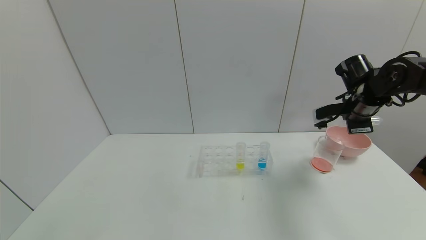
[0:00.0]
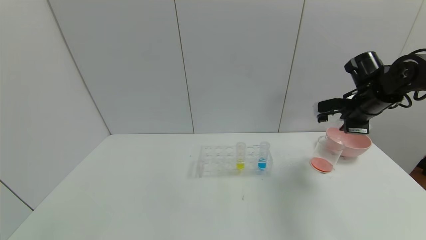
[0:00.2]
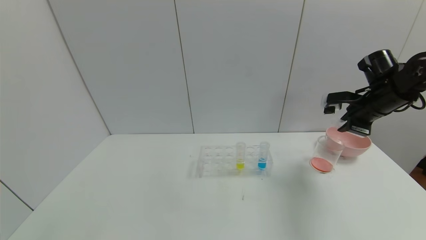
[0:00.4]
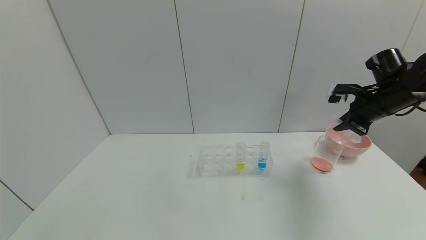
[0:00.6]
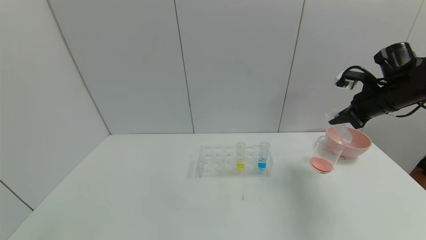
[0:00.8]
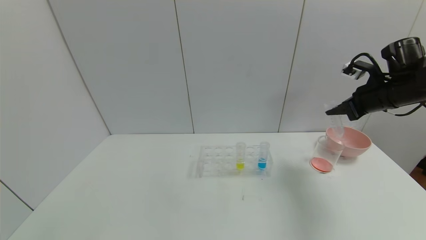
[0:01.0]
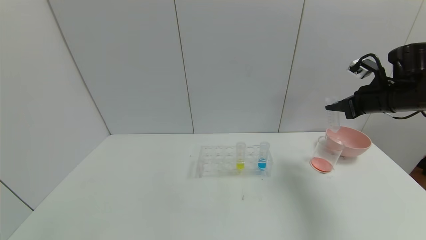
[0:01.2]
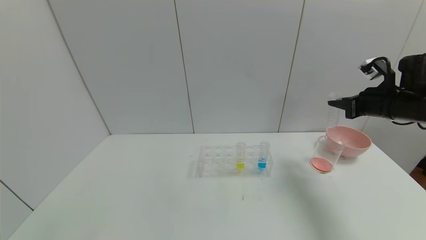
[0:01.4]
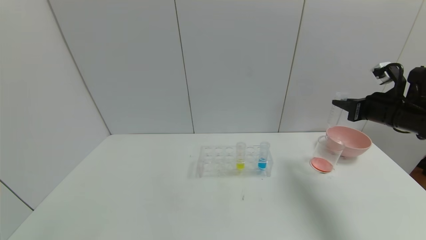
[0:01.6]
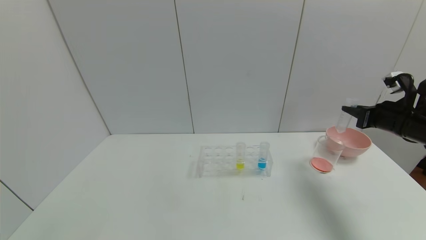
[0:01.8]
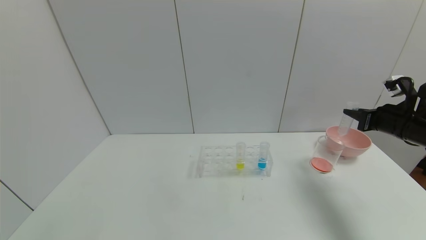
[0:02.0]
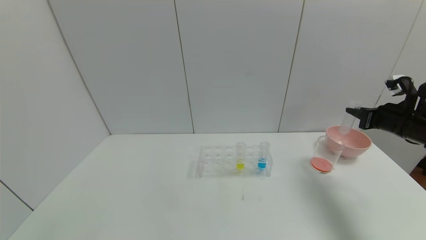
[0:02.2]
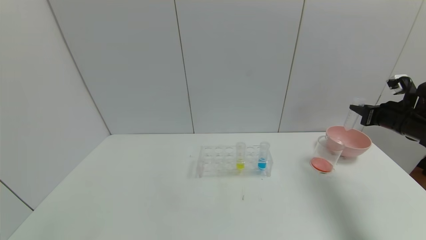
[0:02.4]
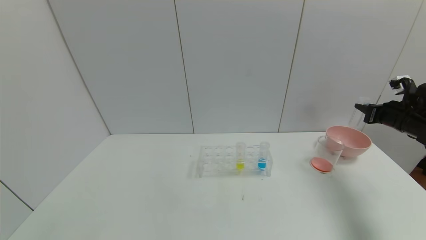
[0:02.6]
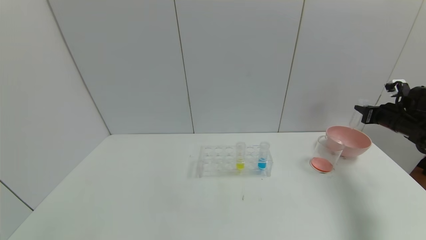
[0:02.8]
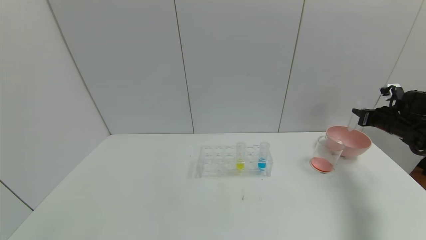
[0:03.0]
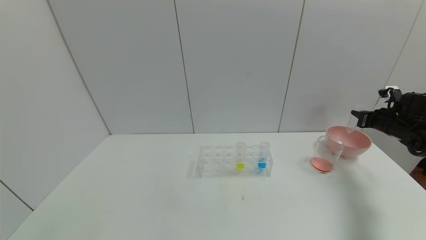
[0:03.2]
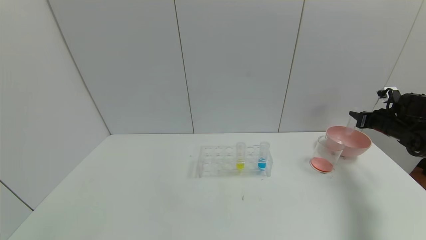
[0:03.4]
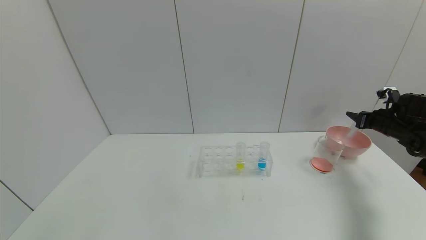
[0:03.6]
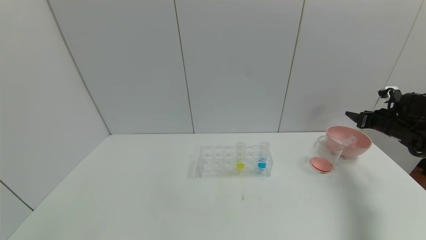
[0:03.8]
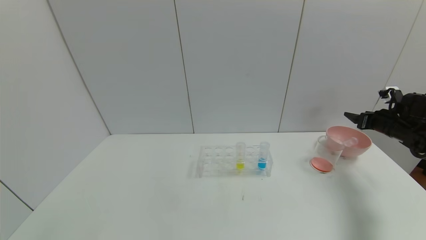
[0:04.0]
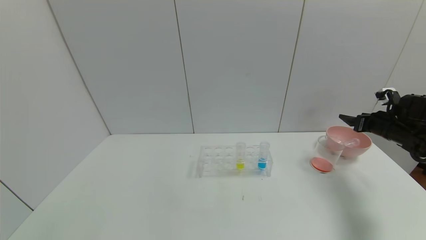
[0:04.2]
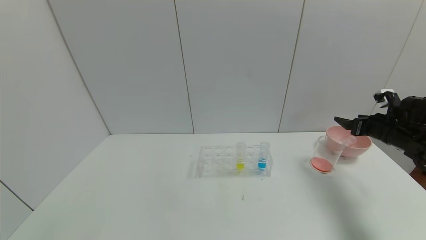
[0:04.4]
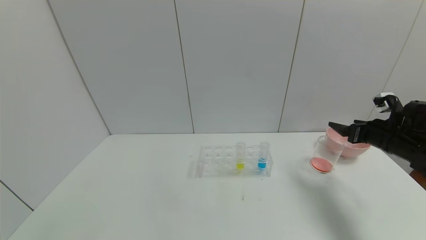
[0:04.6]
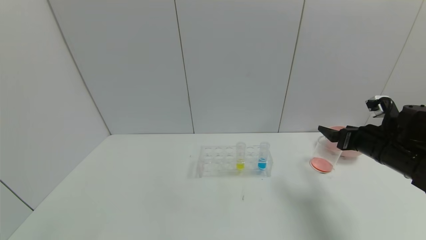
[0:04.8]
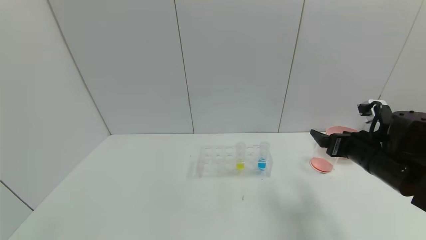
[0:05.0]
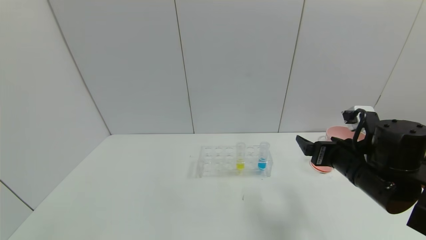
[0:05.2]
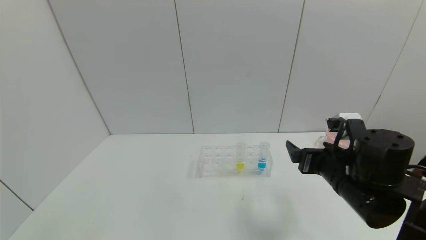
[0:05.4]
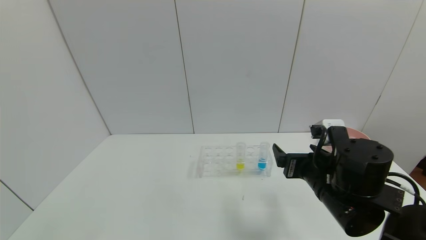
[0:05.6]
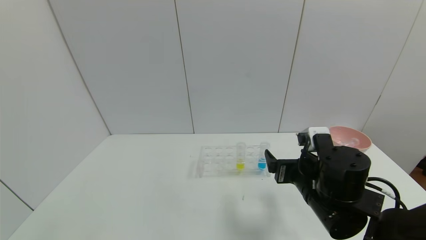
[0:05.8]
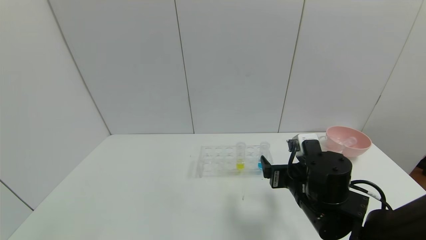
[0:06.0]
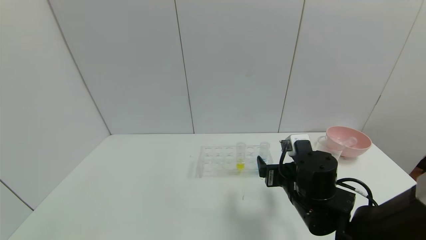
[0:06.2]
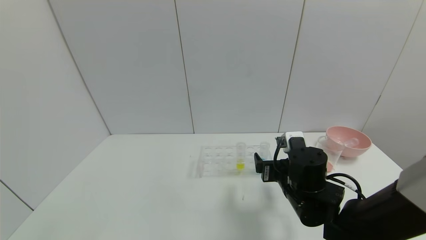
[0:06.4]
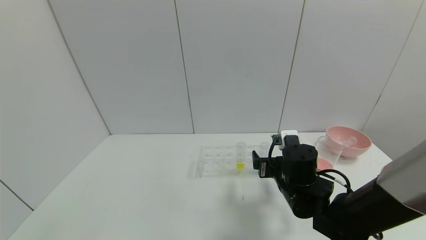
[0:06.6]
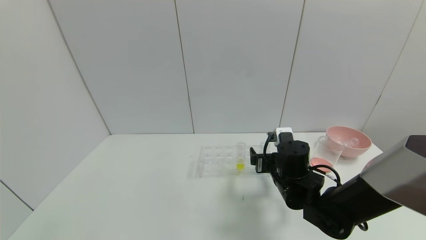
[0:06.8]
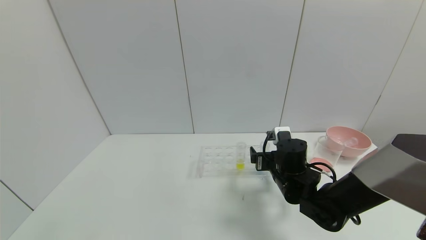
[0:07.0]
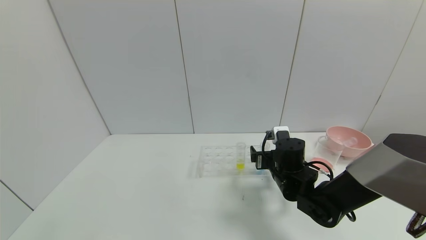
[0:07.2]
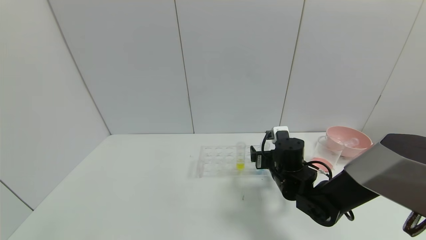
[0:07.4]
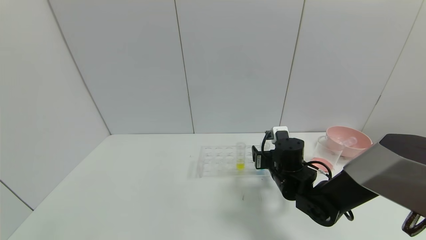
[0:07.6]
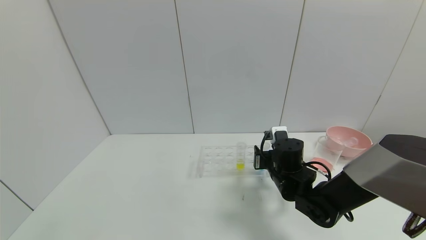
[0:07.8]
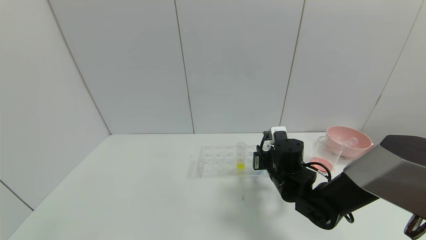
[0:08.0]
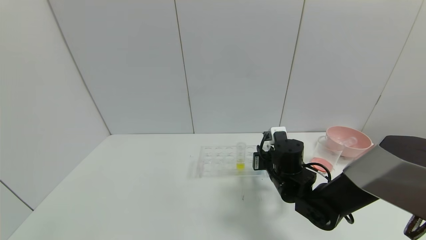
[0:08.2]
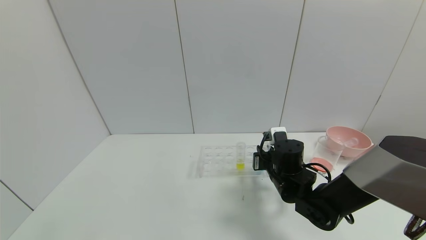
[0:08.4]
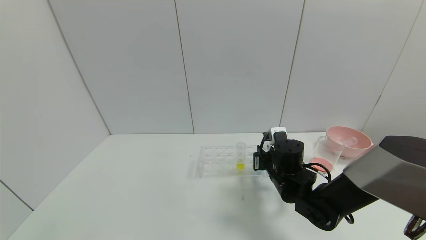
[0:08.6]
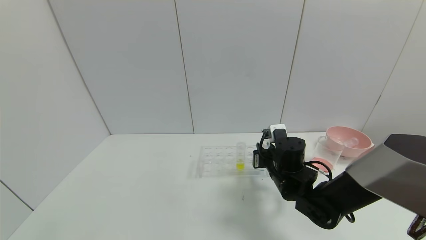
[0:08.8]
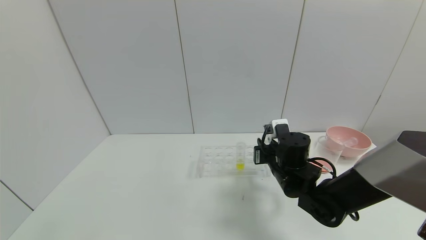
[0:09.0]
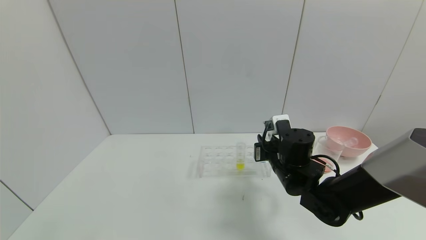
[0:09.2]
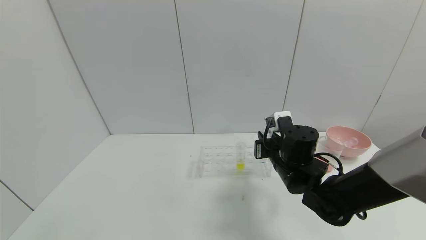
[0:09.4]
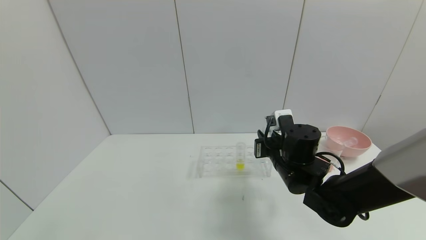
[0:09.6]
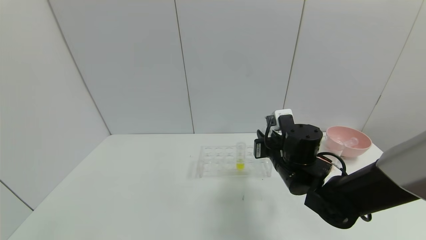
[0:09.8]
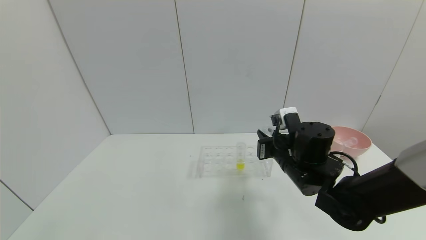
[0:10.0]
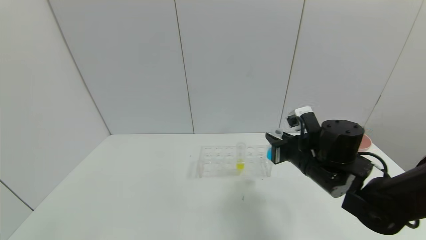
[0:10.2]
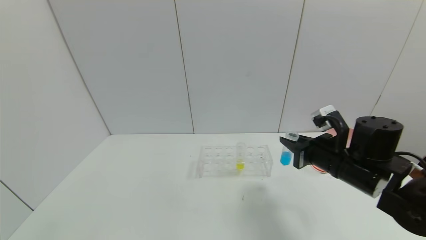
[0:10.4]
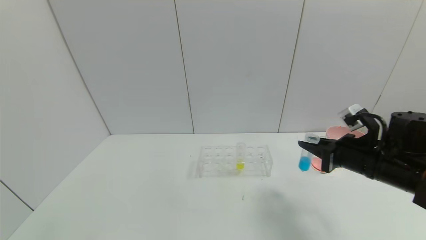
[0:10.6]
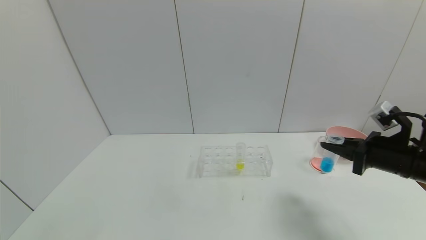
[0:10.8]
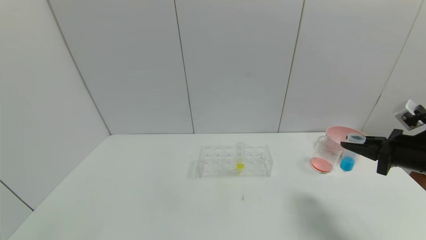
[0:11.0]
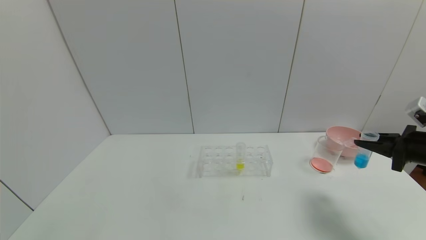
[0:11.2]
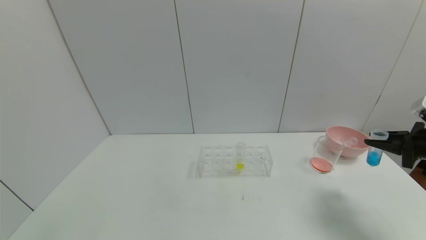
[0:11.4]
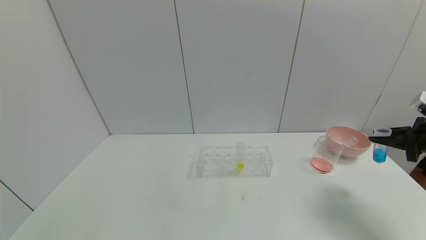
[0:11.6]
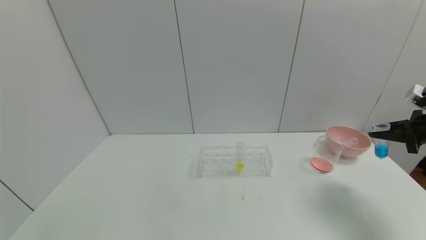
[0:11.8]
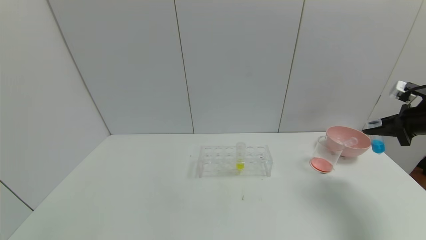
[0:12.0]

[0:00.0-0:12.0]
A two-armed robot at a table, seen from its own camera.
Task of the whole recording: pick up the test tube with red pigment and the test tube with blue pigment by grippers and pour them into the container.
Step, 0:00.0 to 0:02.2: Pour the red reagent into the graduated cylinder with right gripper.
Step, 0:02.4 to 0:04.6: Place the test tube into the bowl with right gripper.
Step, 0:04.8 to 0:11.4: Pick up the test tube containing the blue reagent with right gripper.
0:00.0 to 0:01.6: The right gripper is displaced to the right and backward by some 10 cm.
0:01.6 to 0:03.0: The right gripper shifts approximately 15 cm to the right, forward and downward.
0:03.0 to 0:04.4: The right gripper heads to the left, covering about 5 cm, and opens.
0:04.4 to 0:06.0: The right gripper heads to the left and backward, covering approximately 30 cm.
0:06.0 to 0:07.6: The right gripper travels forward by roughly 10 cm.
0:07.6 to 0:09.0: The right gripper closes up.
0:09.0 to 0:10.4: The right gripper travels to the right and upward by some 10 cm.
0:10.4 to 0:12.0: The right gripper moves to the right, some 20 cm.

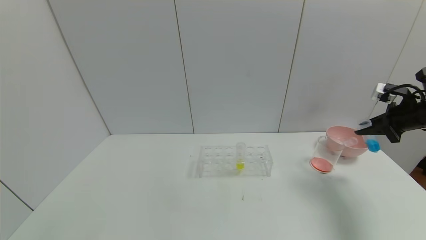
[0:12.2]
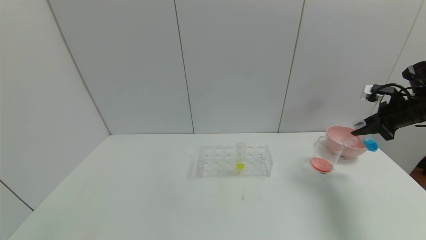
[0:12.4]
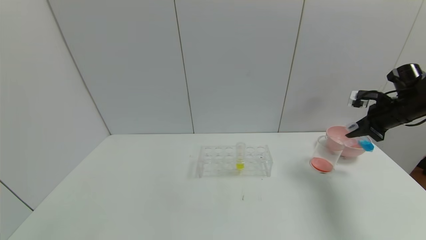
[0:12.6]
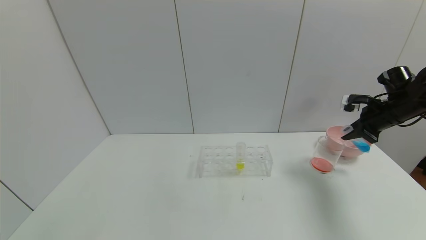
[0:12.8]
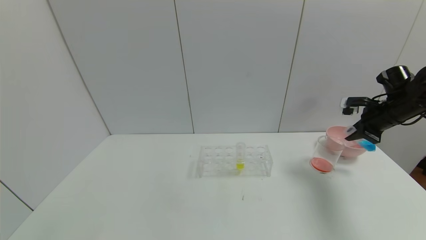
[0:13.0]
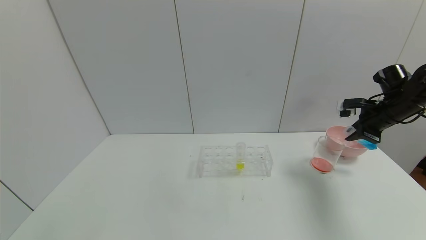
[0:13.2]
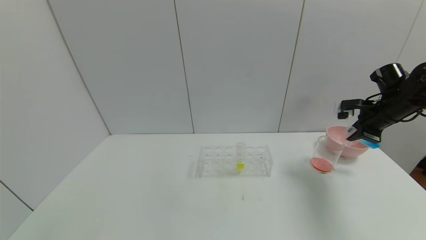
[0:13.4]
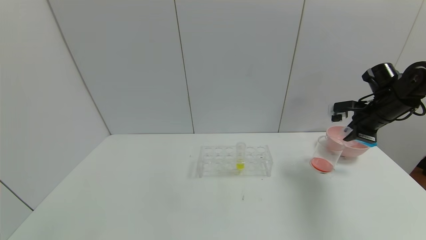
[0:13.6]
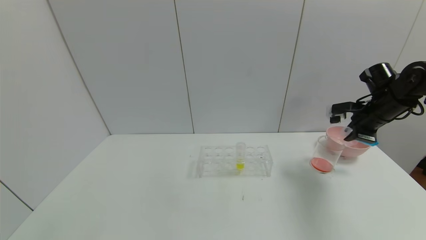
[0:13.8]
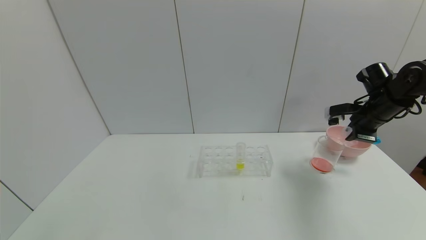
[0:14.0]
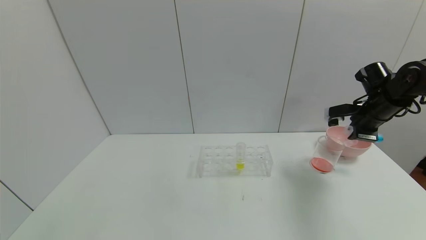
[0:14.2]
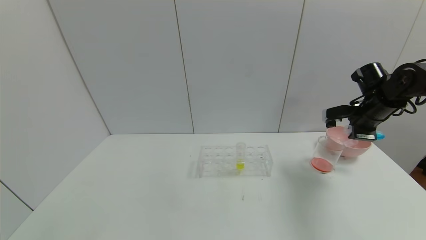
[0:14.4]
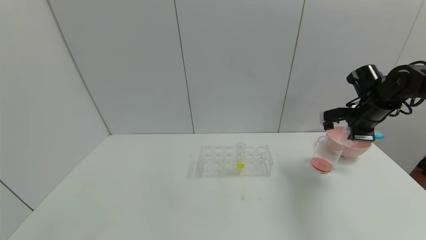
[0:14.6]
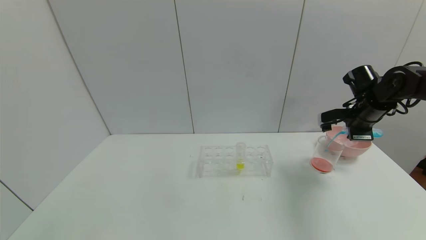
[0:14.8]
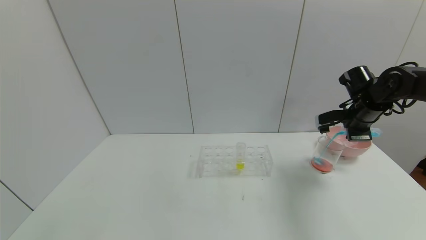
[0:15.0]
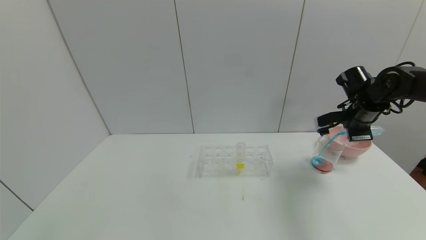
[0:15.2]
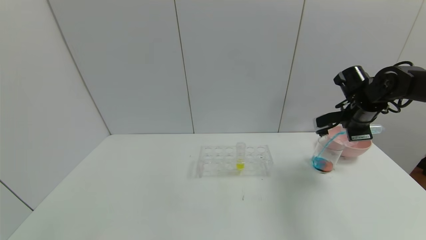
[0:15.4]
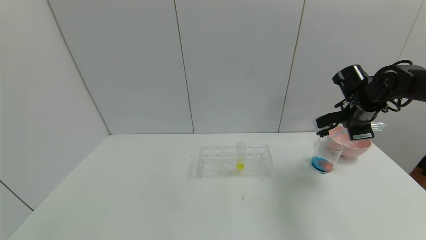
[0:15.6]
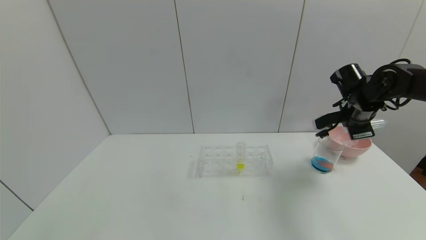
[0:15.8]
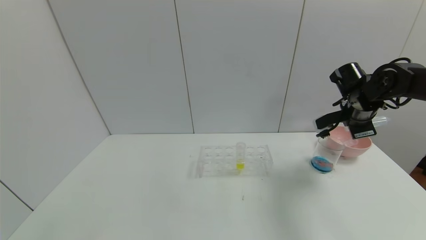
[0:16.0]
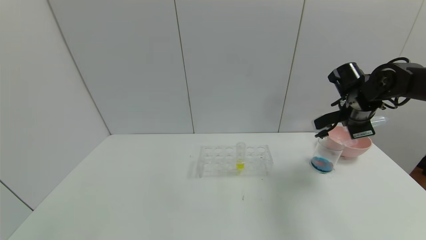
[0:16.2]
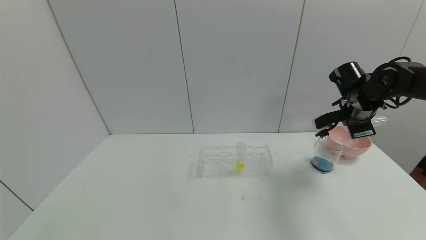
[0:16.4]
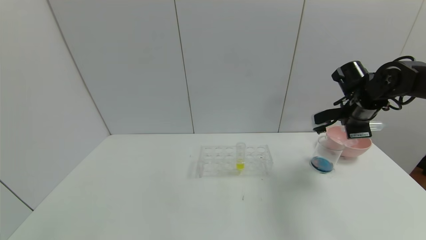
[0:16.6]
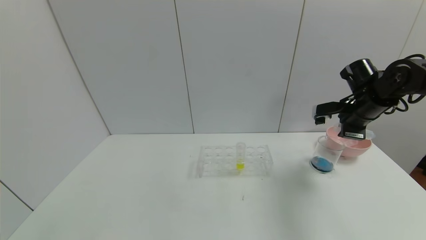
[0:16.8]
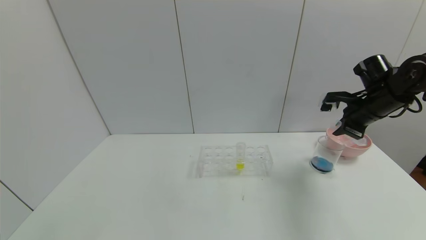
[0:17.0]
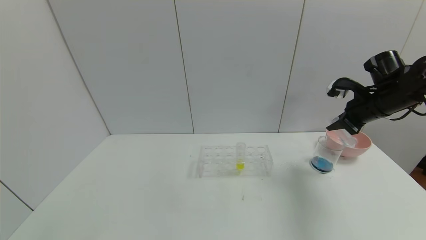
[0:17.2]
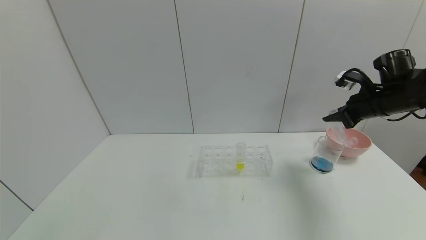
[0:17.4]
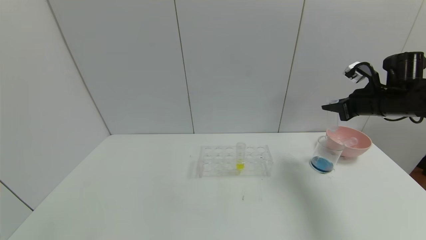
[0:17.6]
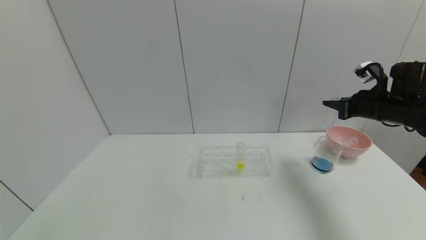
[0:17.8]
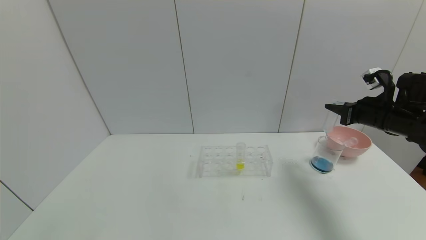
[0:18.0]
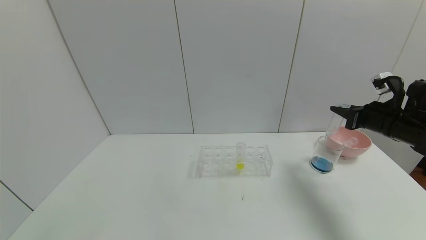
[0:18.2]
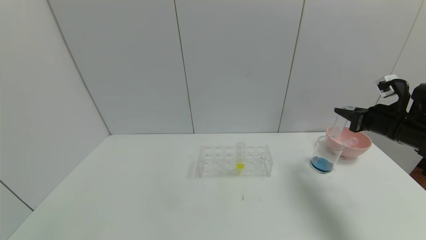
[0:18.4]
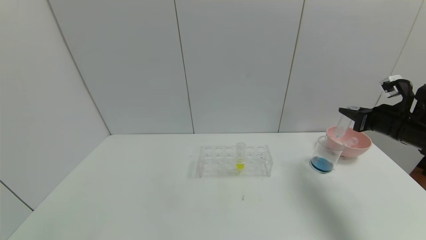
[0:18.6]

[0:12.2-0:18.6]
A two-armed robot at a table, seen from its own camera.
Task of the whole recording: pick up the test tube with red pigment and the test tube with blue pigment by grippers and pour them into the container.
Step, 0:12.2 to 0:18.2: Pour the blue reagent into the graduated cylinder with right gripper.
0:12.2 to 0:13.8: The right gripper moves to the left, roughly 5 cm.
0:17.0 to 0:18.6: The right gripper goes approximately 5 cm backward.
